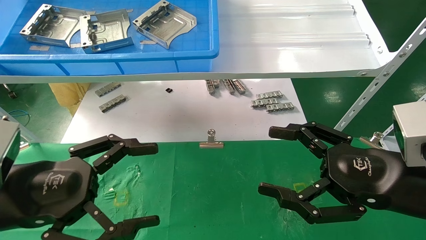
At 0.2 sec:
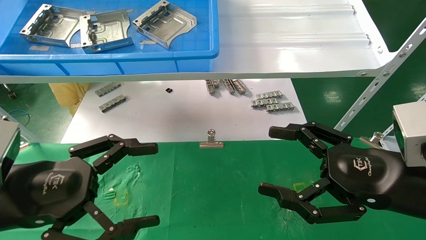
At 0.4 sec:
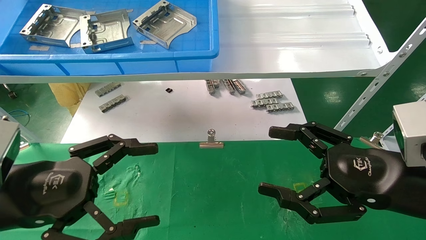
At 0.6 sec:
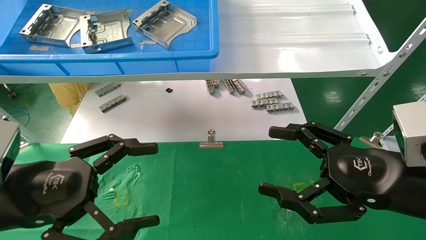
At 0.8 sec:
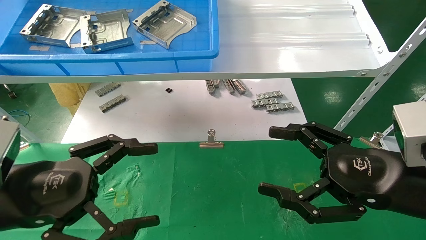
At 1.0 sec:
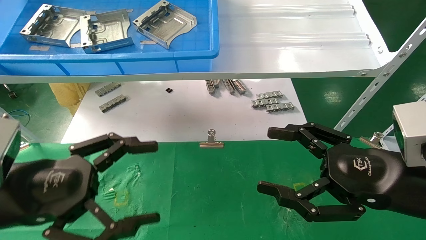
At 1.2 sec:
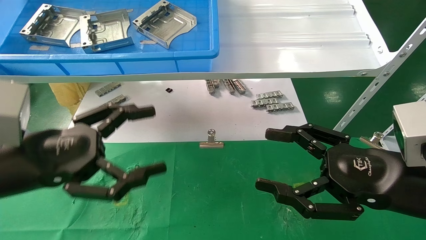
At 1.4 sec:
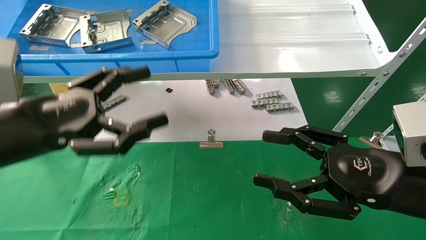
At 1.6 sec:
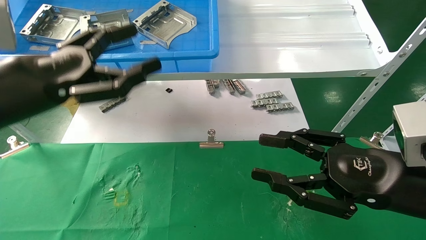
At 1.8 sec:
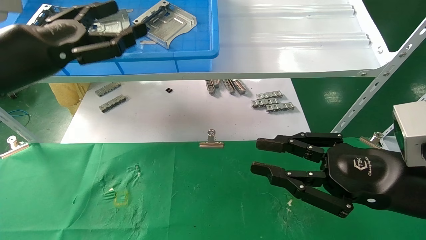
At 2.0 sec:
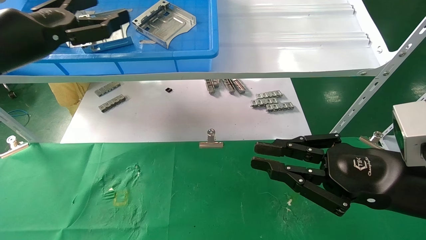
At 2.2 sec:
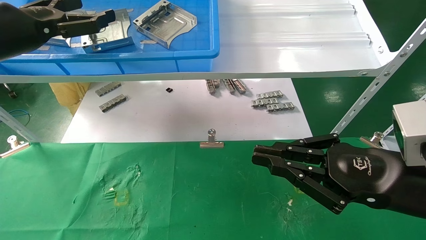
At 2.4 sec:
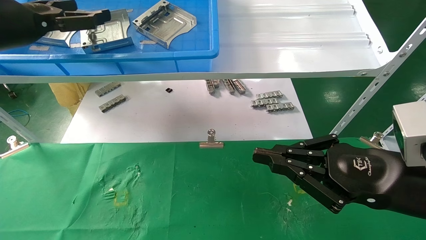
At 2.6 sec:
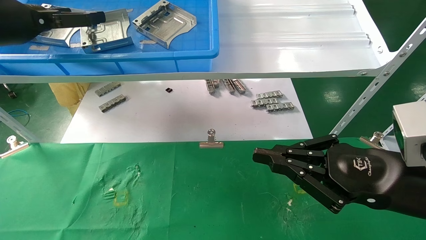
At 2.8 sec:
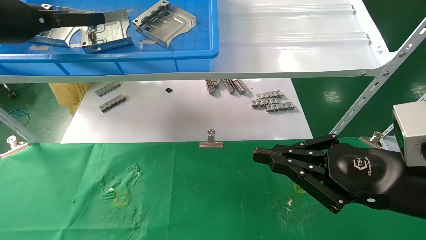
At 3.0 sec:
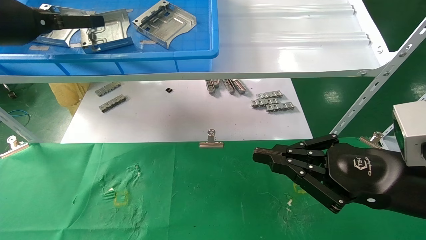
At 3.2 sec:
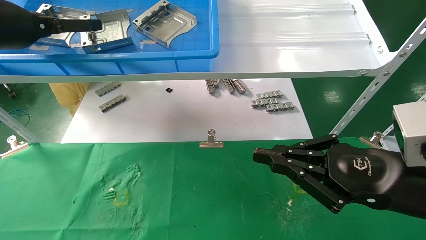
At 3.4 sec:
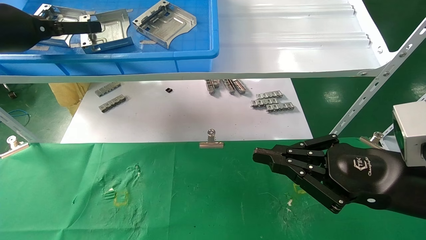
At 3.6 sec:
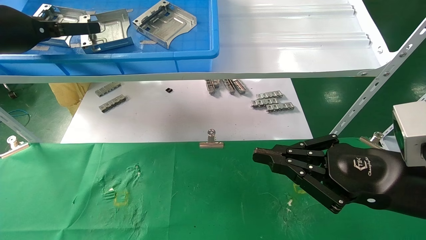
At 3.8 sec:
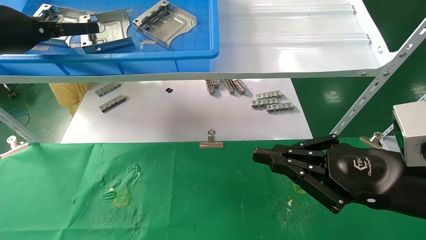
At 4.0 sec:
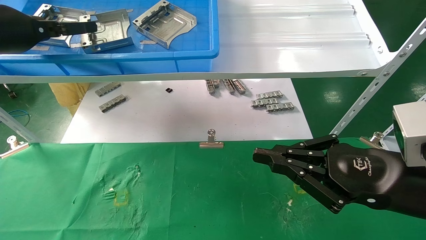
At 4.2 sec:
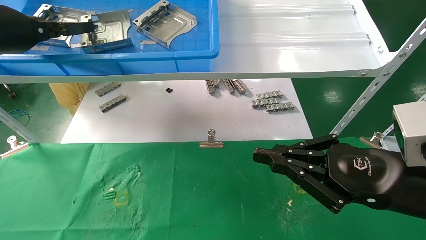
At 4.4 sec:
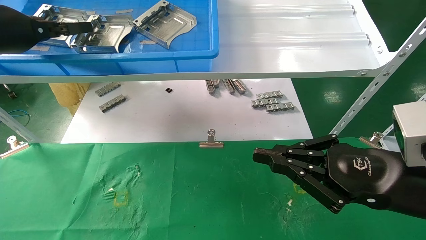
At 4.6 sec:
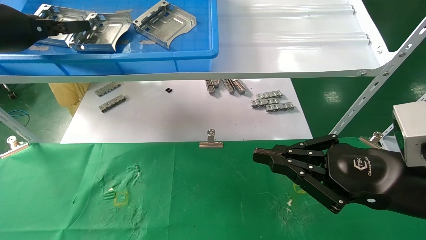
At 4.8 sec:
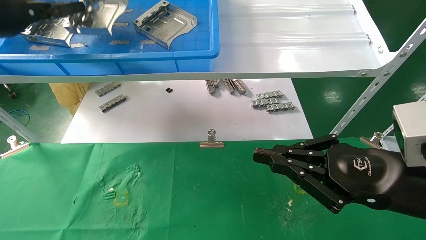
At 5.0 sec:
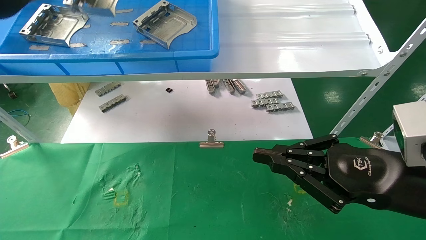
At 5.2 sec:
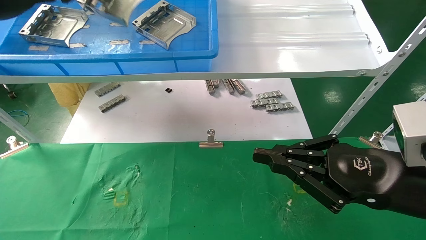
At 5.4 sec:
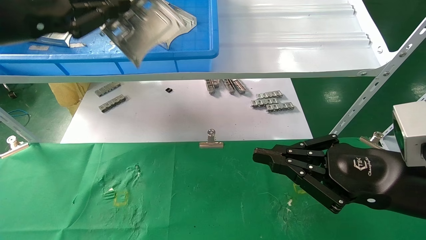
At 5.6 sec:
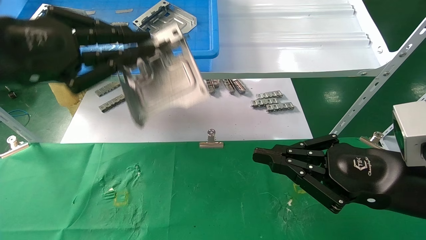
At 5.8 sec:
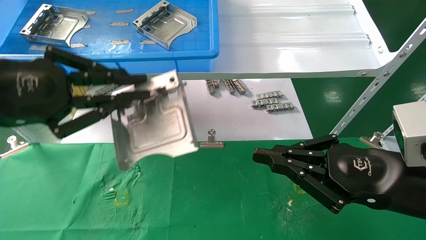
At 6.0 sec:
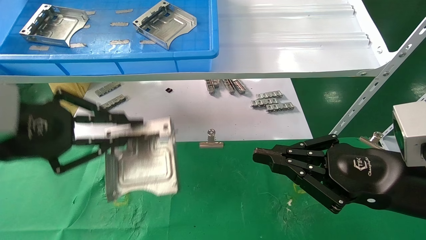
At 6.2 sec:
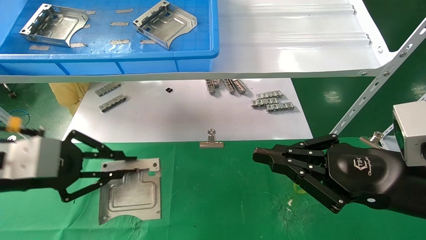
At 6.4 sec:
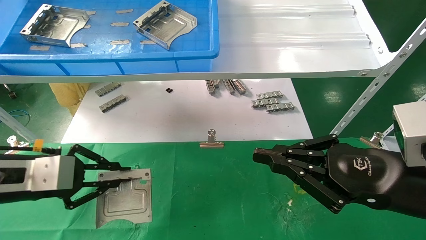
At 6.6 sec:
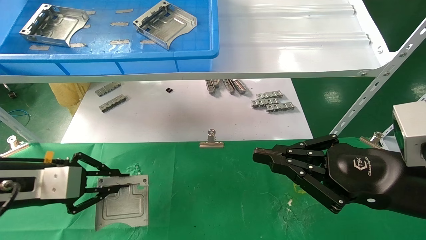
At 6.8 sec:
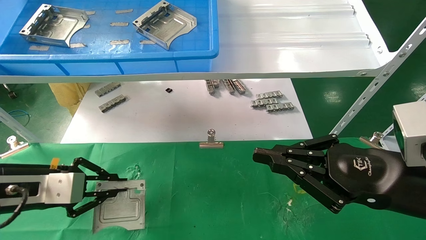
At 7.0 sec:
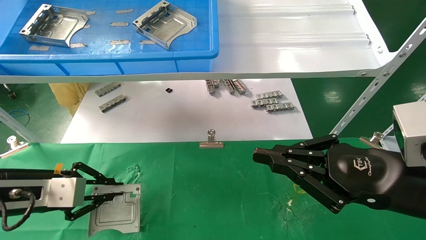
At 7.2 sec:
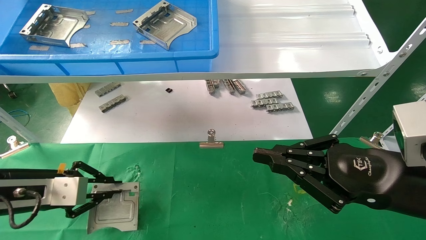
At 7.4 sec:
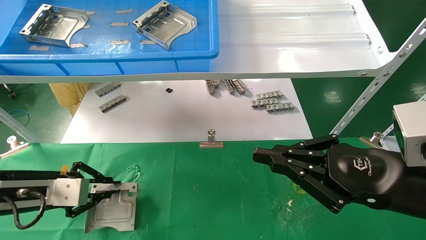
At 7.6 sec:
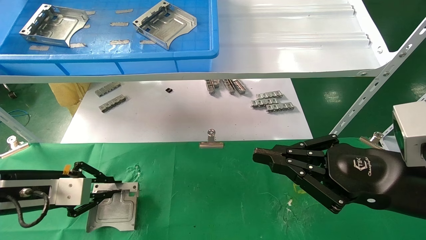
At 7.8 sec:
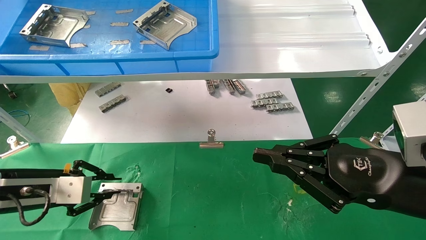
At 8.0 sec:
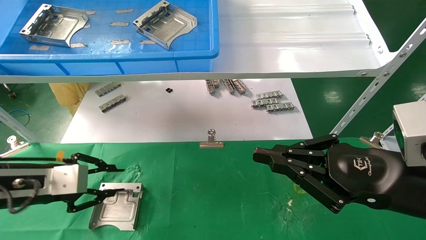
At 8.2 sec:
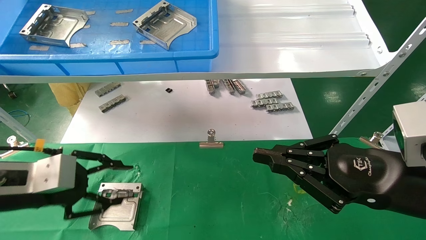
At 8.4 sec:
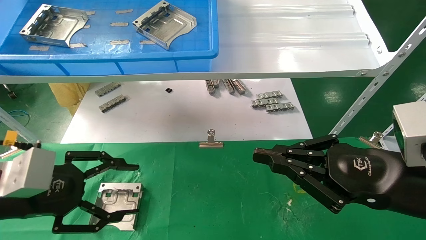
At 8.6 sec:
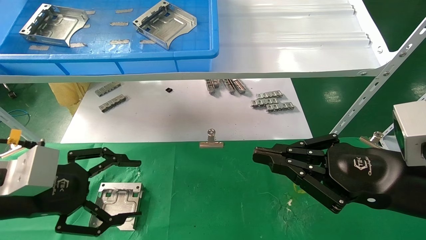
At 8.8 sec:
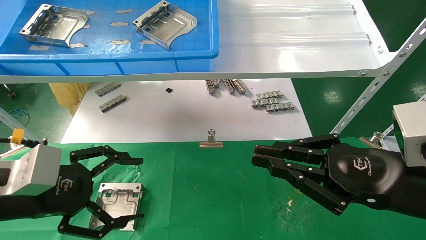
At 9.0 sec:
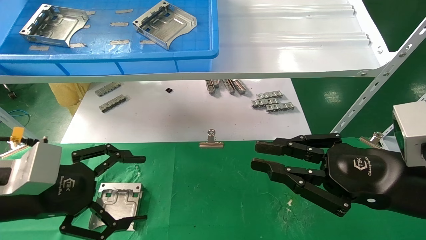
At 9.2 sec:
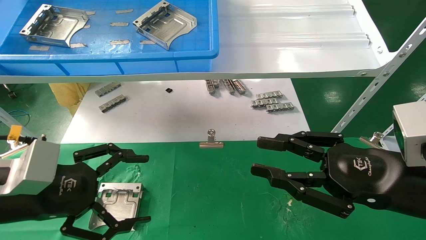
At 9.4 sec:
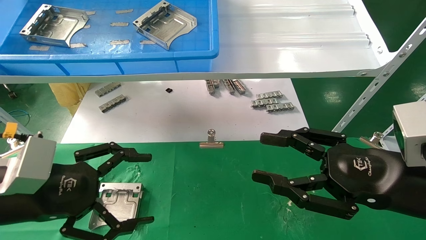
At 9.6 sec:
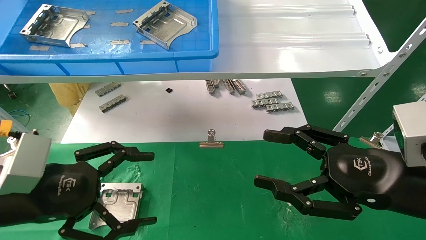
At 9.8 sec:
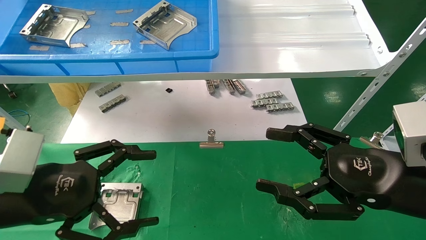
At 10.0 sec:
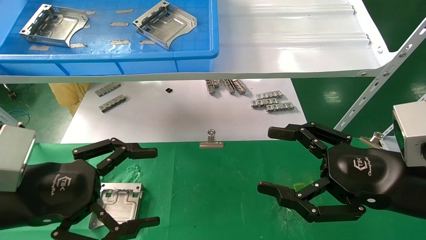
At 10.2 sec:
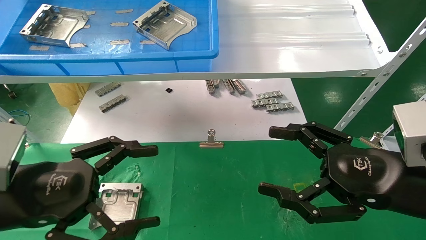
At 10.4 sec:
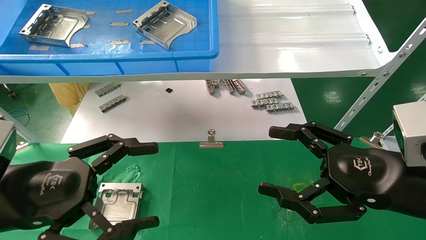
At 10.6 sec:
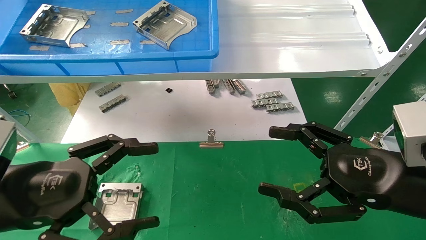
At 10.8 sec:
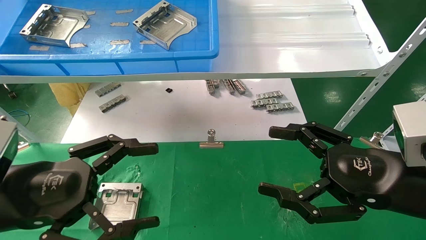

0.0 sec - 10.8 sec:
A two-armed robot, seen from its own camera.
Task of the whole recording: use the mechanical arm to pick up the parts and place them on the table.
Step, 1.4 sec - 4.6 sec: Pick up the hard drive bracket from the feeding area.
Step, 4.8 sec - 7.8 sec: Place the hard drive bracket into the box.
0.0 sec - 1.6 sec: The right gripper closes. Meanwhile the left gripper moves upward and forward, approximately 10 cm.
1.6 sec - 3.0 sec: The right gripper closes up. The left gripper is displaced upward, forward and to the left by some 15 cm.
3.0 sec - 4.6 sec: The left gripper closes up.
4.6 sec - 6.2 sec: The left gripper is displaced downward and backward by some 20 cm.
6.2 sec - 7.8 sec: The left gripper goes about 10 cm downward and forward.
7.8 sec - 9.2 sec: The left gripper moves backward, about 5 cm, and opens its fingers.
9.2 sec - 10.8 sec: The right gripper opens.
